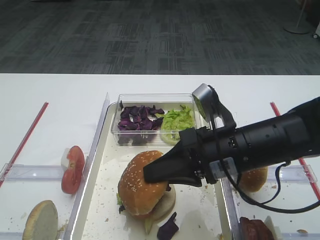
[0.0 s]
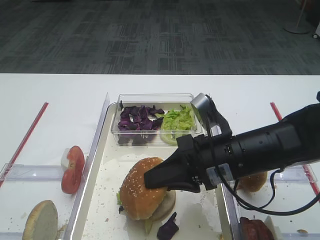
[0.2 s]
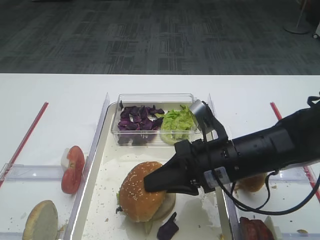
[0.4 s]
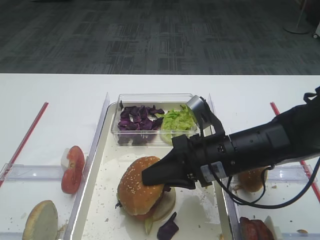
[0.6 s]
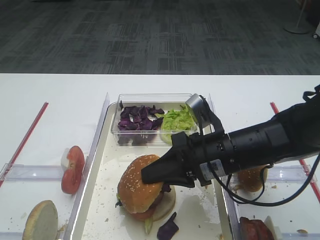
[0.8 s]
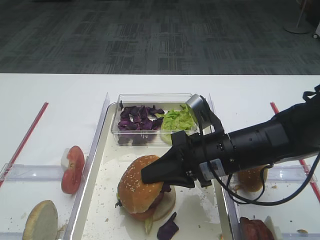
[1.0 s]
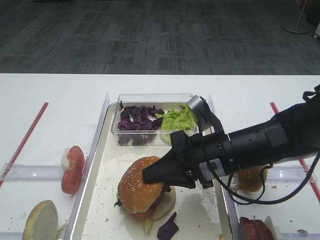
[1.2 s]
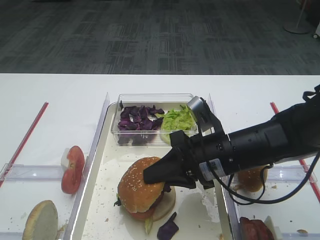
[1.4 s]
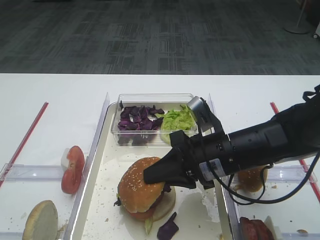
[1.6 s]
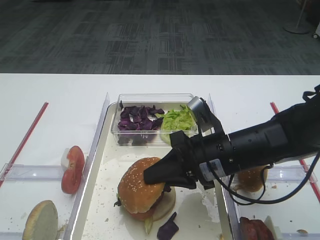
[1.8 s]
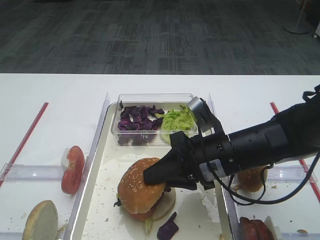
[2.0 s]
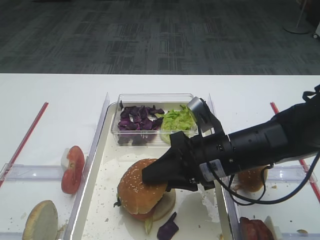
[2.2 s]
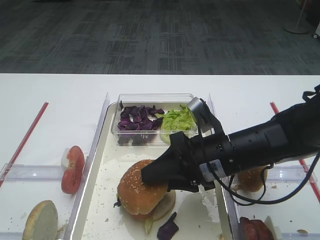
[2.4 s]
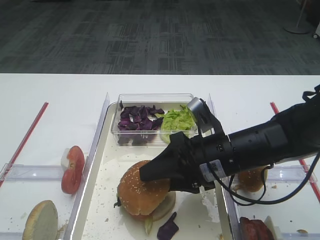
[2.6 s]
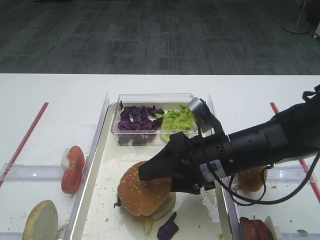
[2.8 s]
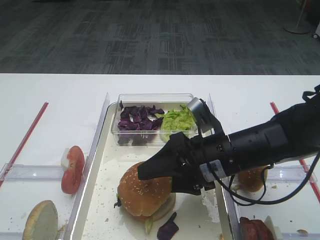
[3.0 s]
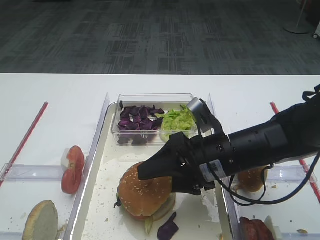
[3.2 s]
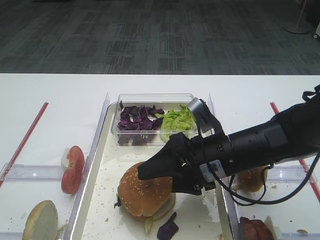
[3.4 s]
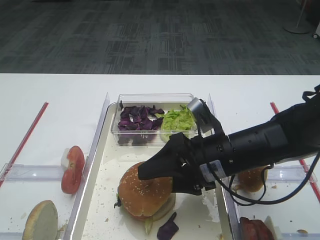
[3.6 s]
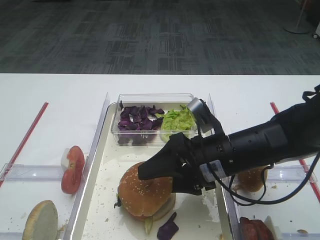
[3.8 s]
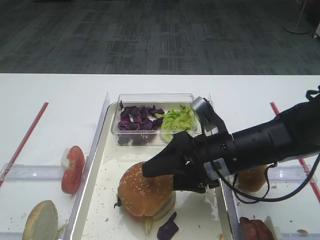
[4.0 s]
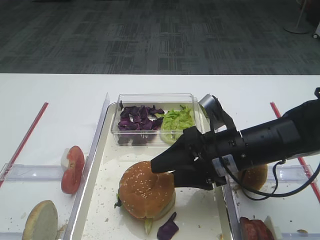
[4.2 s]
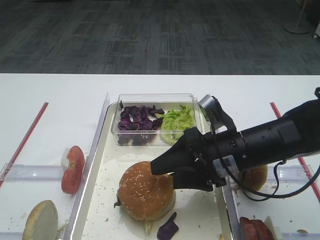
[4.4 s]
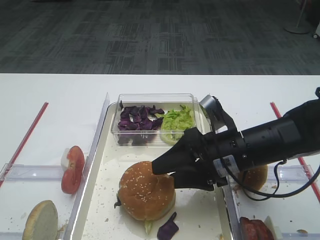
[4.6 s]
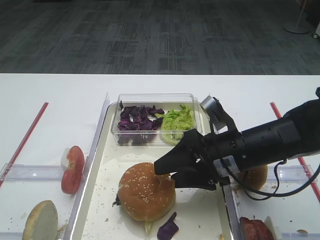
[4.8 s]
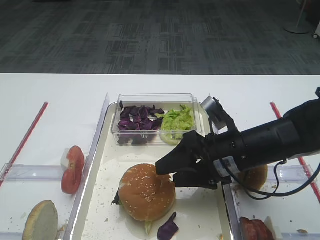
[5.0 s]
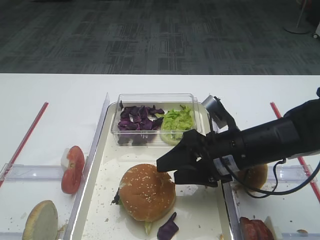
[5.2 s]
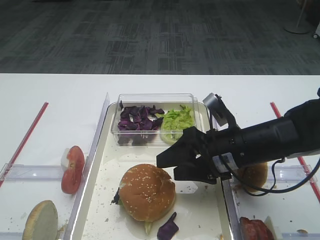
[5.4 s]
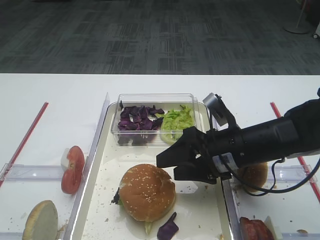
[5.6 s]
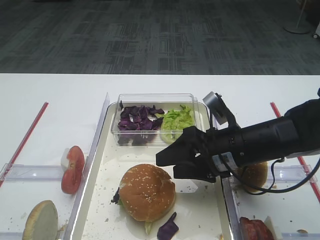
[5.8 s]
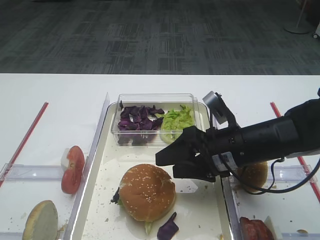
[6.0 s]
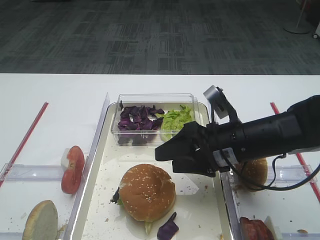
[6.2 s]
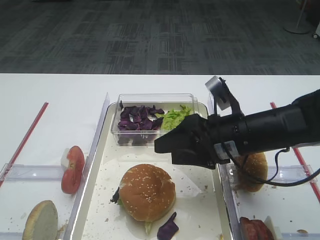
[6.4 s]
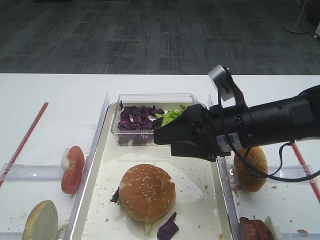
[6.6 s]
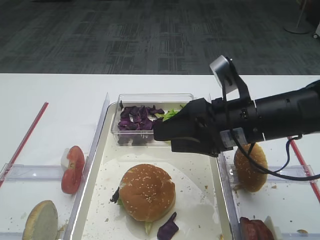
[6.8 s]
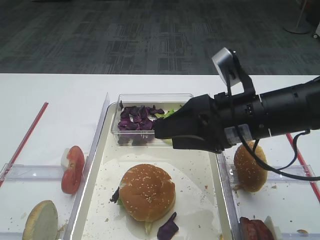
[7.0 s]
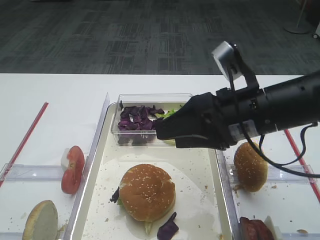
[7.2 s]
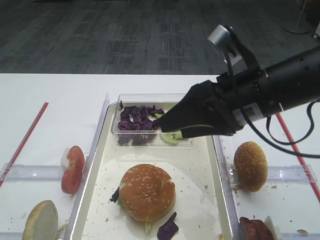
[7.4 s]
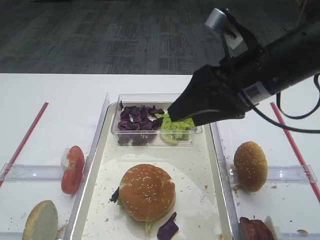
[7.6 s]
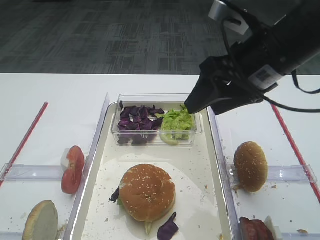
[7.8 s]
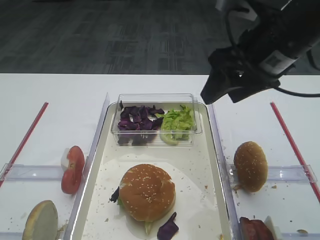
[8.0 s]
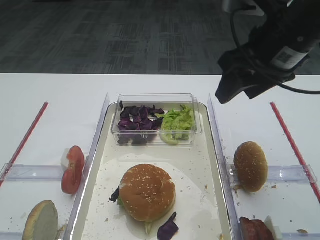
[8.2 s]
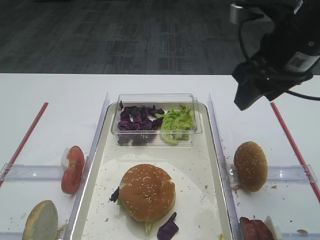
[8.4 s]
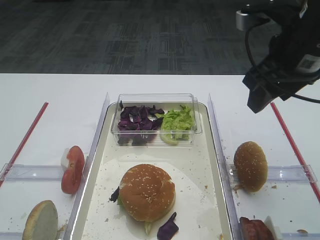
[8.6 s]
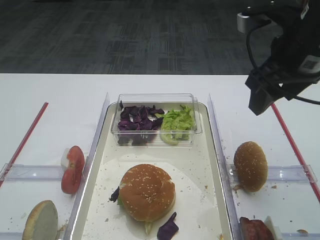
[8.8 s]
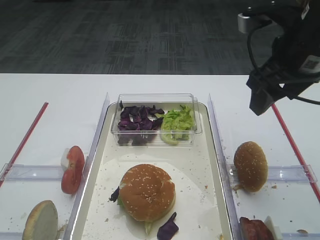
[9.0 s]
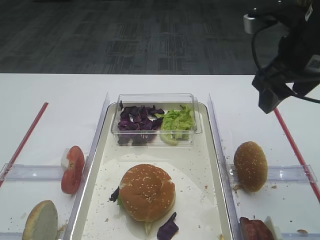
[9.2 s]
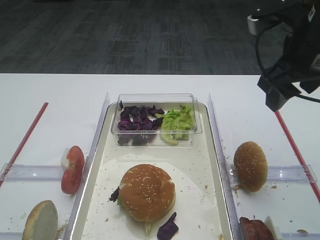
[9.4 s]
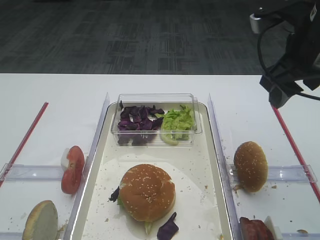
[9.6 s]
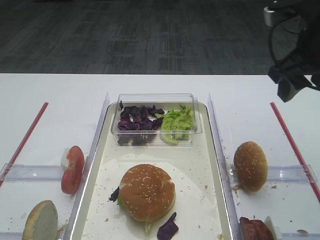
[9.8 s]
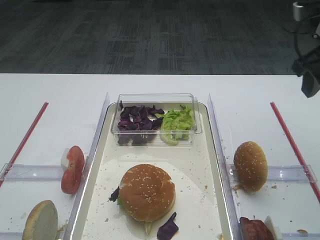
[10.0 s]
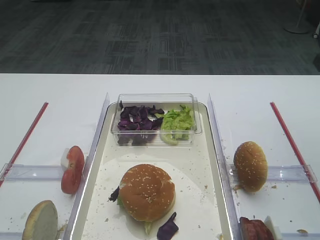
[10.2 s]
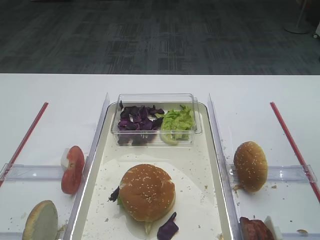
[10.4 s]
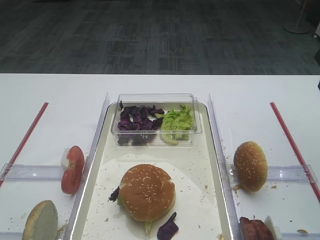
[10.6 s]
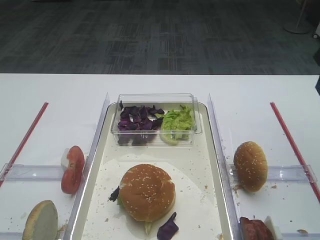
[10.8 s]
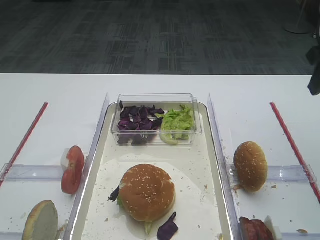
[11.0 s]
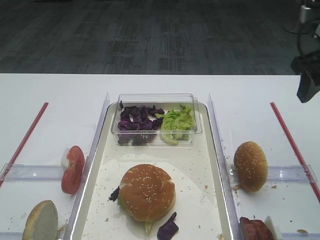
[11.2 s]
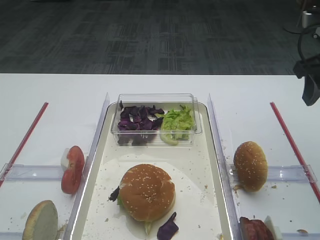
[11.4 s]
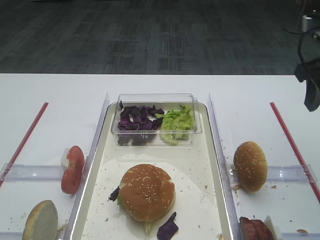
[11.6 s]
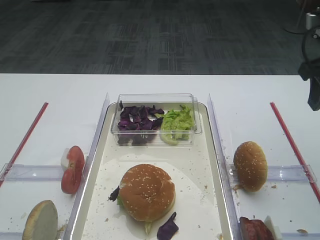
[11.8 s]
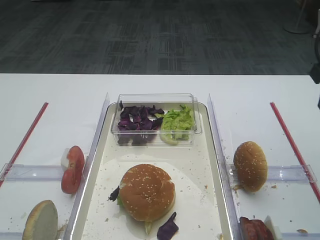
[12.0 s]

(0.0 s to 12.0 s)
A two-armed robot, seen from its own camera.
Step, 0.0 s - 6.6 s: Place the hamburger lid on the purple cabbage with the right gripper.
0.0 s - 1.6 s: The grippers move only a little.
1.6 s - 3.0 s: The right gripper opens up.
3.0 s - 6.0 s: The grippers stay close to where they were, moving slightly.
6.0 s - 7.6 s: The right gripper goes about 15 cm upward.
7.6 s - 9.0 s: The right gripper travels to the right by approximately 5 cm.
9.0 s - 10.4 s: The right gripper goes approximately 10 cm to the right.

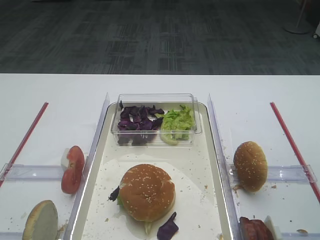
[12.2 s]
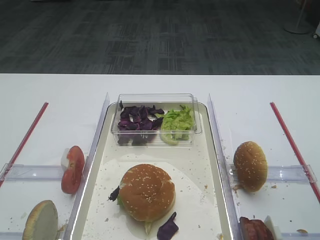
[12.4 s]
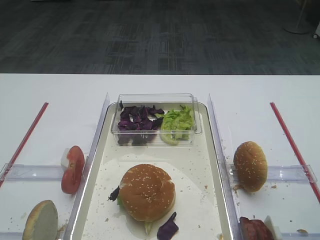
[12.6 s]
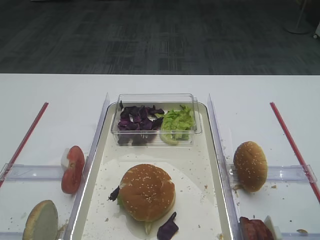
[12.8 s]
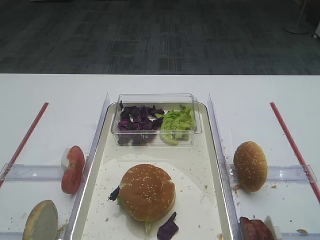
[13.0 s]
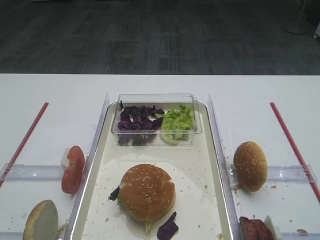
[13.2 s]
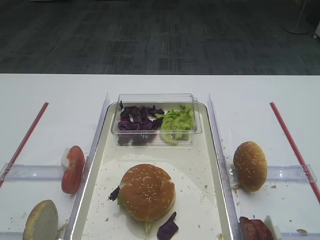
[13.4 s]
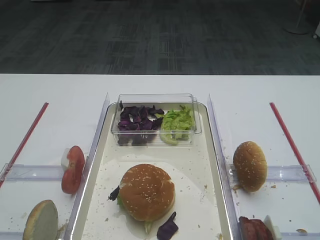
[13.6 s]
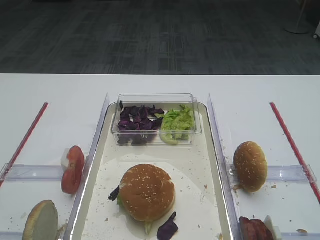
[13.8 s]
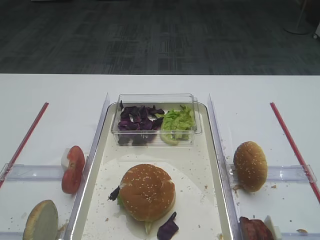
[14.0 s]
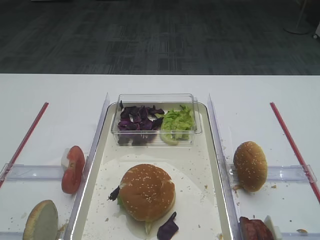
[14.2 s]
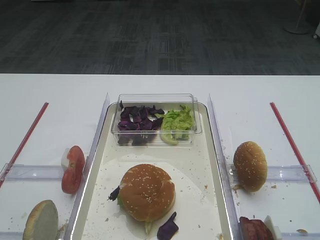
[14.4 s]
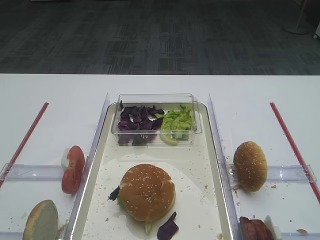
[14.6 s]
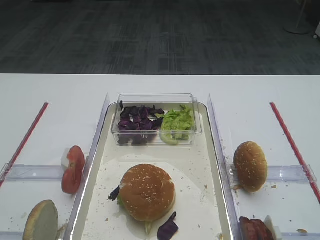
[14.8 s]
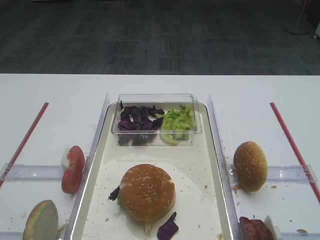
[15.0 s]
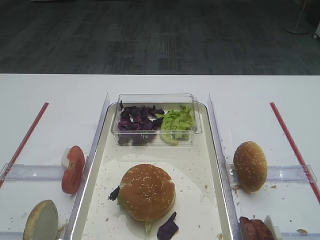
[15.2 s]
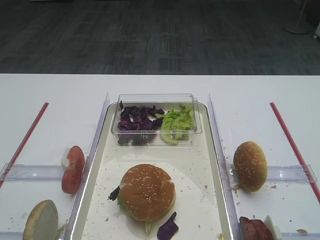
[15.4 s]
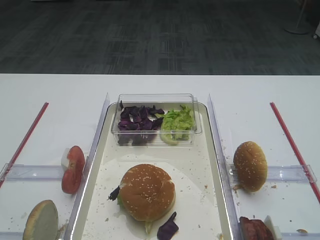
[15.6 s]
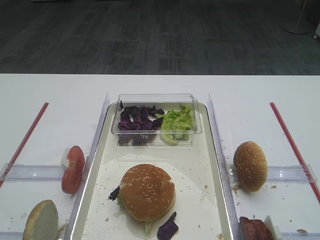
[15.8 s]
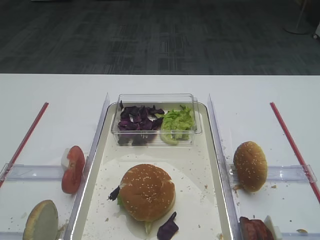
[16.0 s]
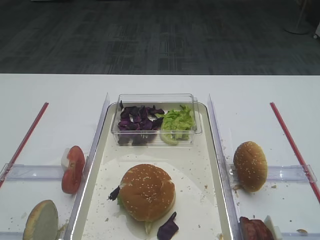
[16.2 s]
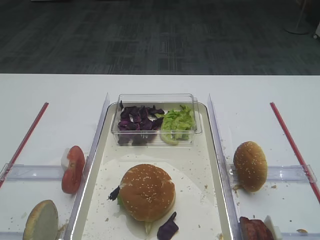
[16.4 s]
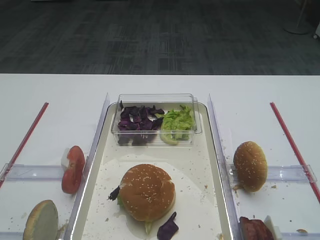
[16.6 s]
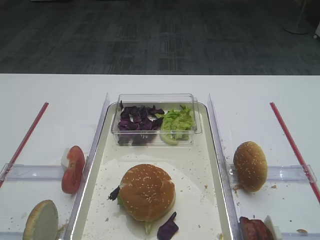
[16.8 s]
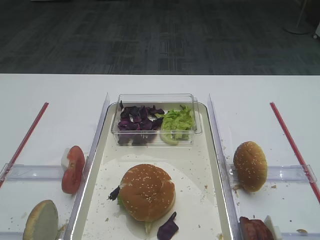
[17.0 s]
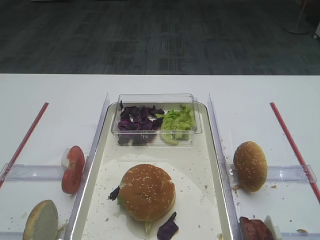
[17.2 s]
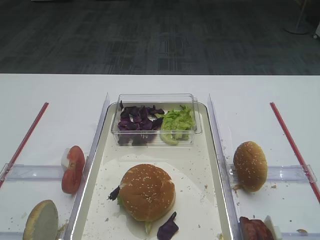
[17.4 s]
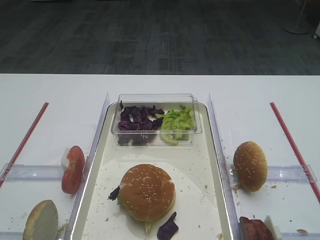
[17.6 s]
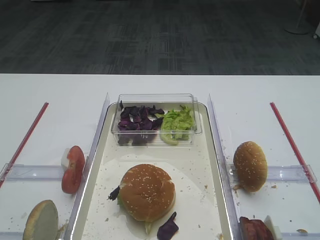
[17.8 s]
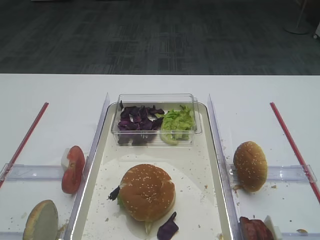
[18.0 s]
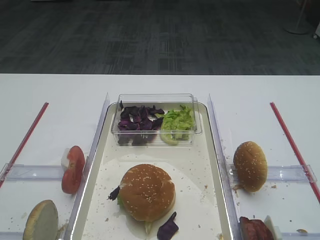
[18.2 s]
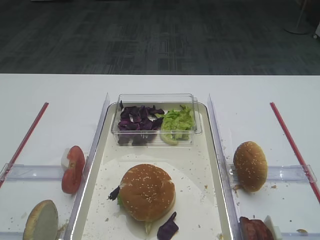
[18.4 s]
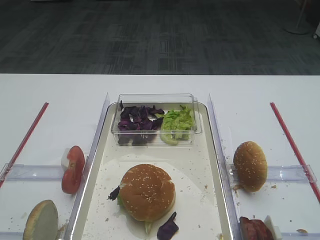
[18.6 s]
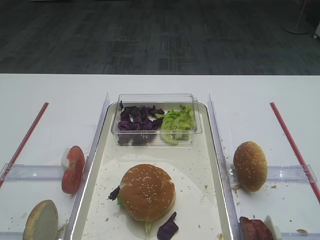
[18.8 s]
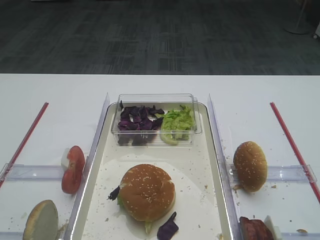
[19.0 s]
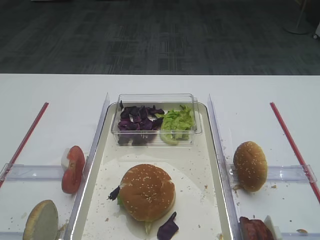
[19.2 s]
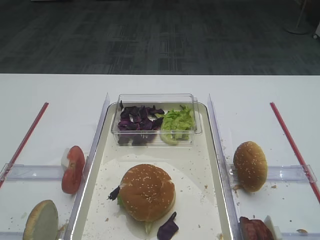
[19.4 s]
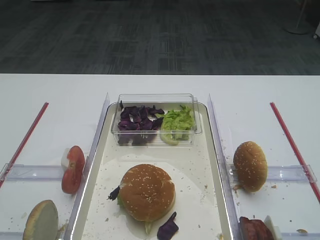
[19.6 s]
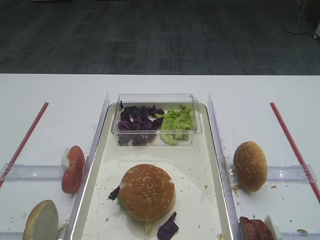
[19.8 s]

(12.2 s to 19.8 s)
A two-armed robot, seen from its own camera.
13.8 s - 19.8 s: Both grippers stay put.

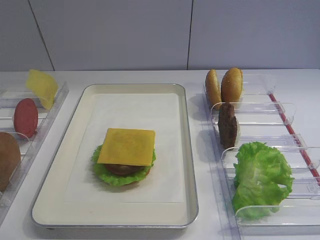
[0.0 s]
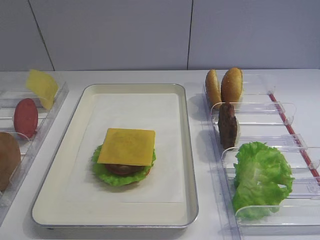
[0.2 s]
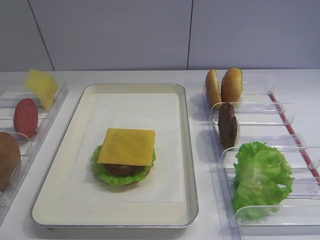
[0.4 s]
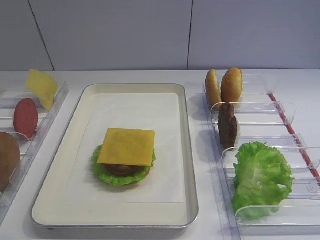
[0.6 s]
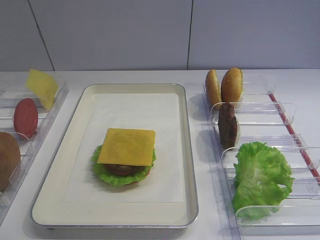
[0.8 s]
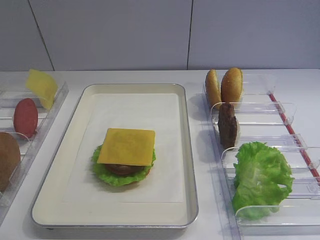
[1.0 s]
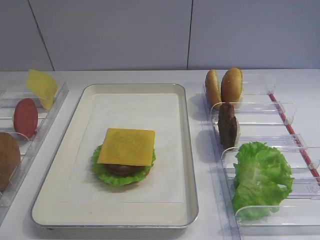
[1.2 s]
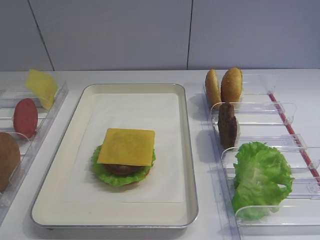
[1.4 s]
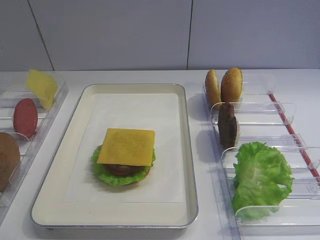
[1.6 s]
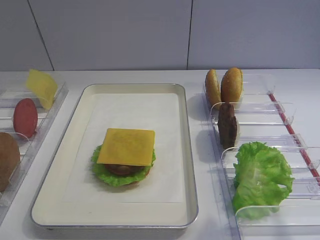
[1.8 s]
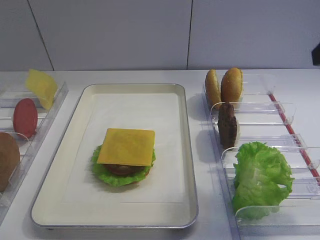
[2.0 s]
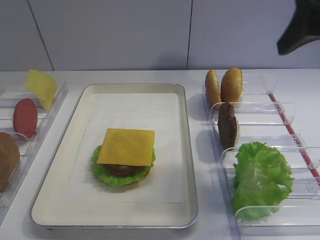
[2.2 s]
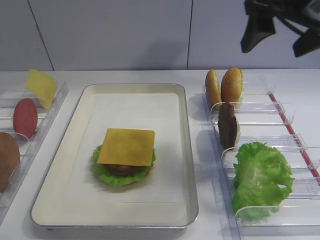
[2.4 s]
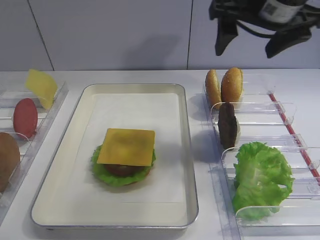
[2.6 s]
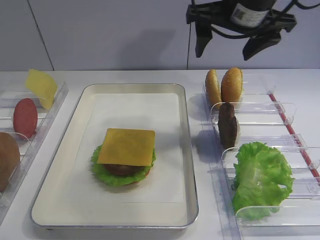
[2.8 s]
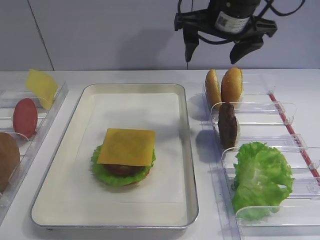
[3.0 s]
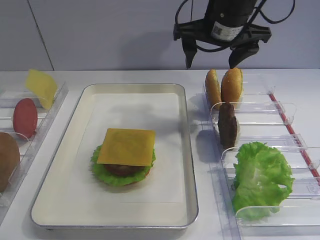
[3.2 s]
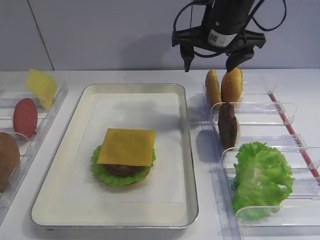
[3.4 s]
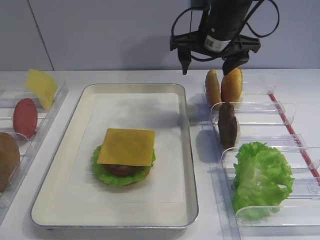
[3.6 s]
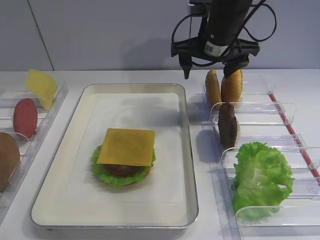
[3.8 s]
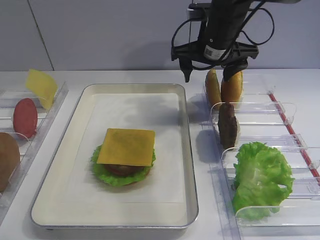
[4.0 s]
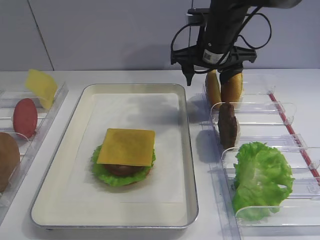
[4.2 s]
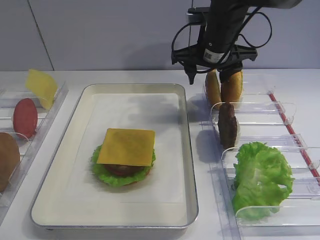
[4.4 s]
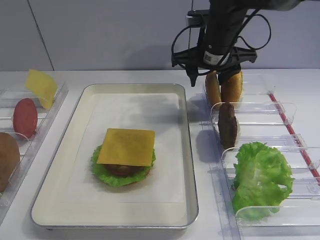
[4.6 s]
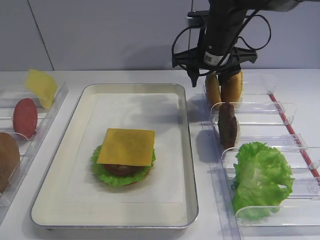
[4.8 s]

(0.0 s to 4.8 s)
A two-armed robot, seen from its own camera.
1.6 s - 3.2 s: The right gripper travels forward and to the left by approximately 35 cm, and opens.
3.2 s - 4.8 s: The right gripper moves downward, about 5 cm, and closes up.
